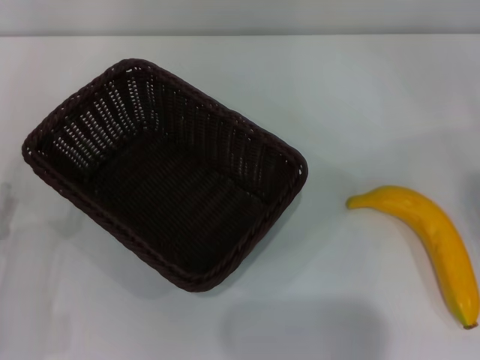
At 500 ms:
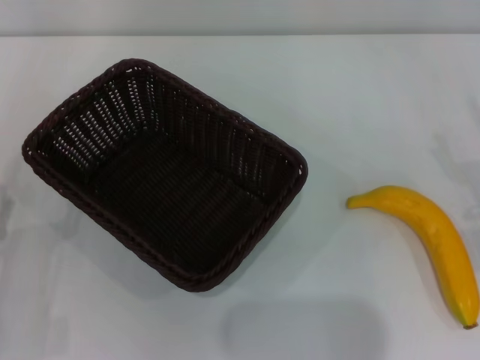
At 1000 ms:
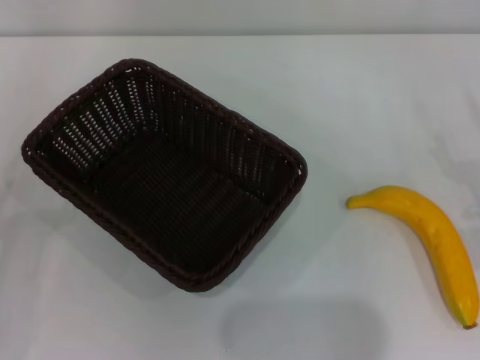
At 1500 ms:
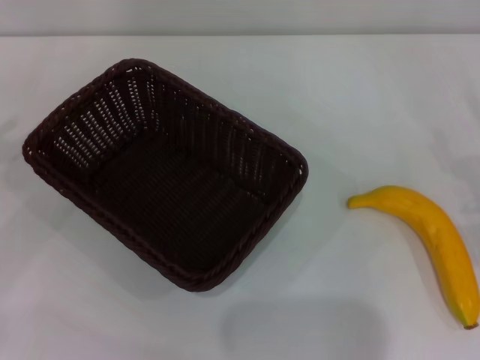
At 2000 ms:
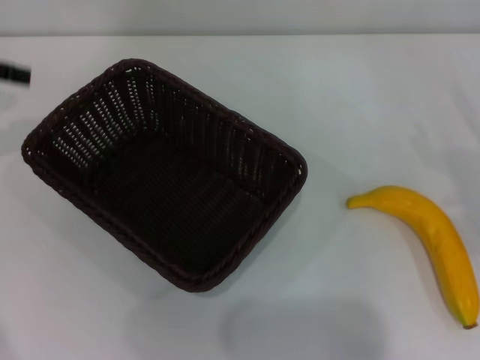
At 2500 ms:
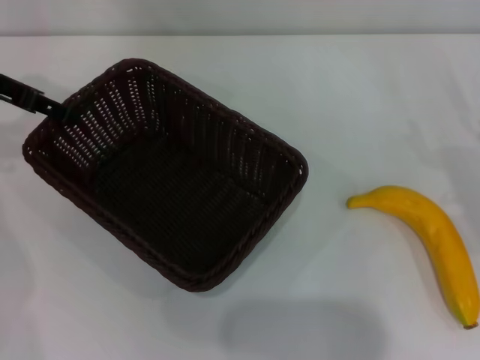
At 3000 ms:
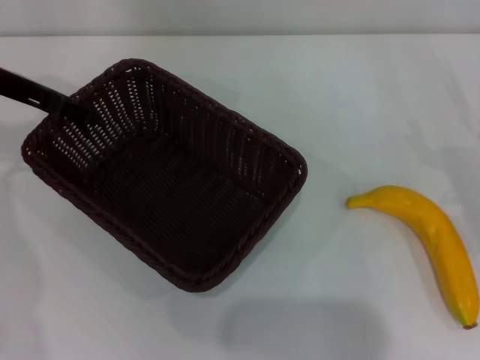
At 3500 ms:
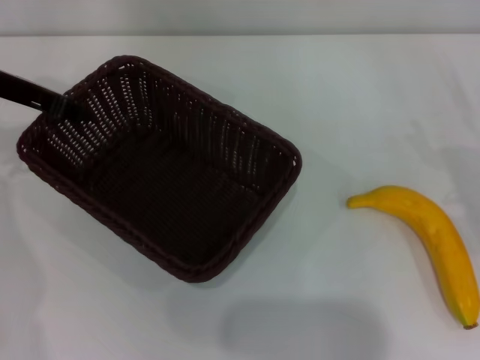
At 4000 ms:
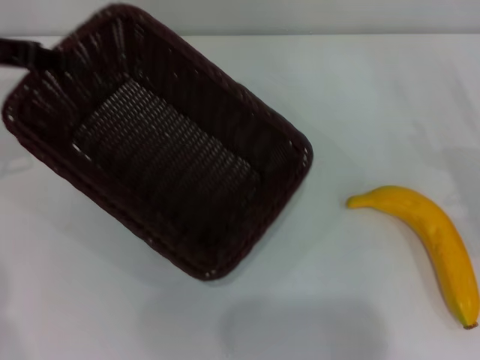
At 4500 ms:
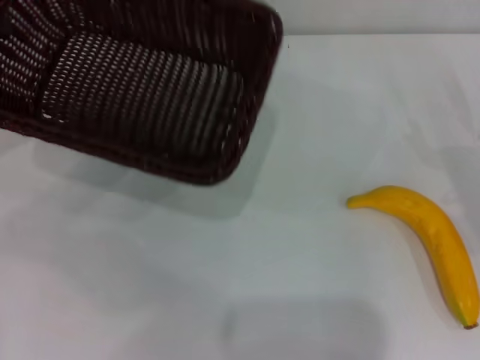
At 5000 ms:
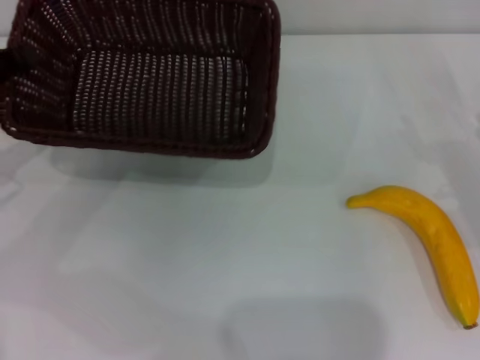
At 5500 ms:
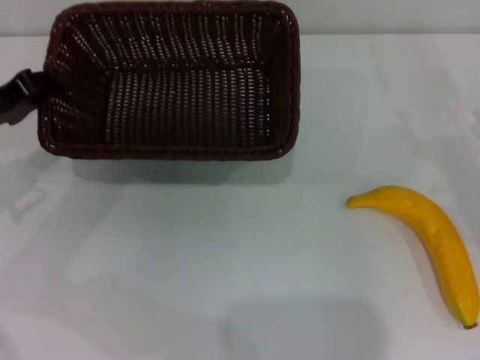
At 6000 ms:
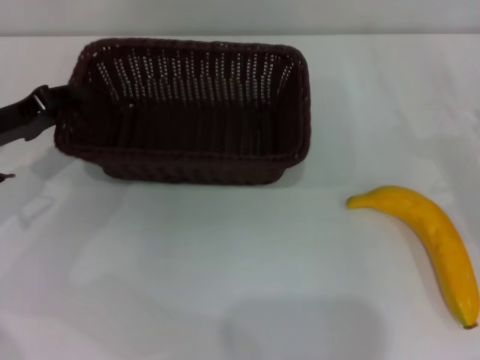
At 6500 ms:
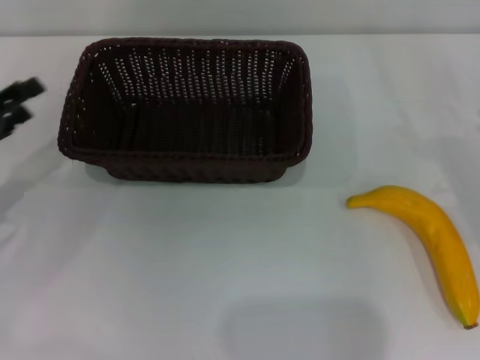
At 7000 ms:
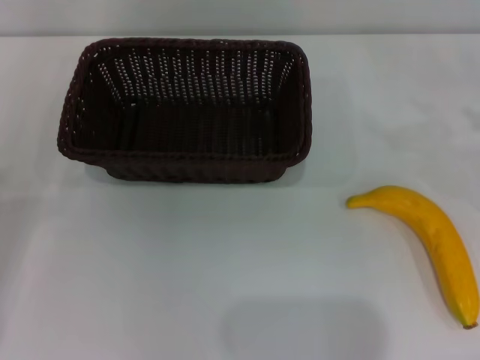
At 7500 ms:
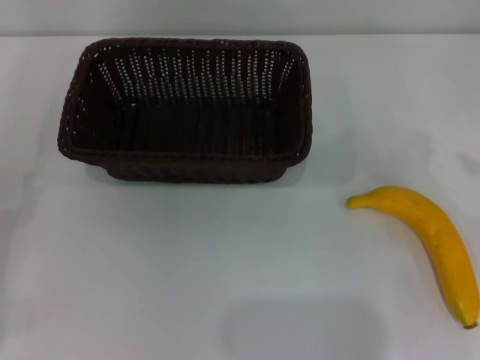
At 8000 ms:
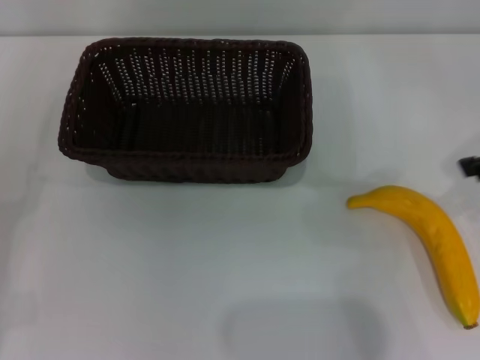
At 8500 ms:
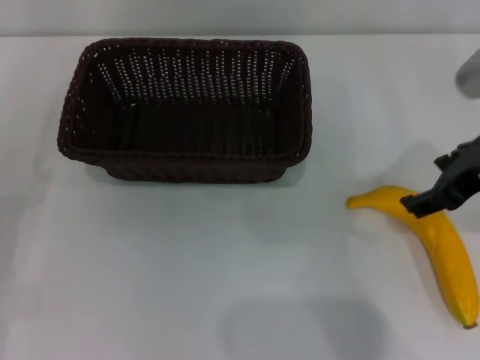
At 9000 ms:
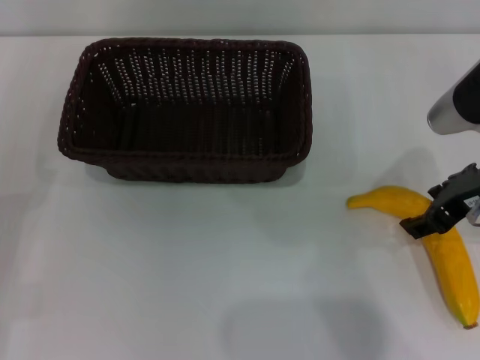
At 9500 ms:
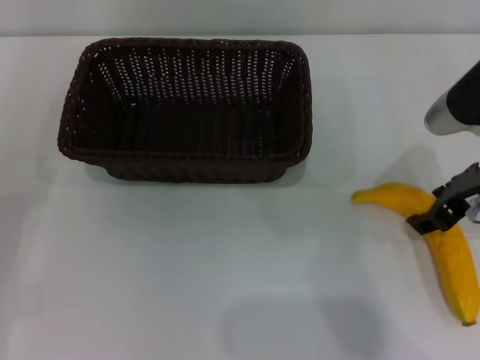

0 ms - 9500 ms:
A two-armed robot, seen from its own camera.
Step, 0 ms - 3500 ms: Pick up the dark basket with the left gripper.
Step, 4000 ms - 6000 ms: Place the dark basket in the center of view with the left gripper.
0 ms - 2000 ms: The left gripper shifts roughly 30 cm upward and forward.
2000 ms - 4000 ms: The left gripper closes its fingers.
4000 ms - 5500 ms: The left gripper is displaced downward and backward by roughly 10 cm.
5500 ms - 7500 ms: The right gripper is displaced upward by some 15 cm; the left gripper goes approximately 15 cm backward and downward, and opens up.
7500 ms - 9500 ms: The right gripper heads to the left and downward, covering some 15 cm.

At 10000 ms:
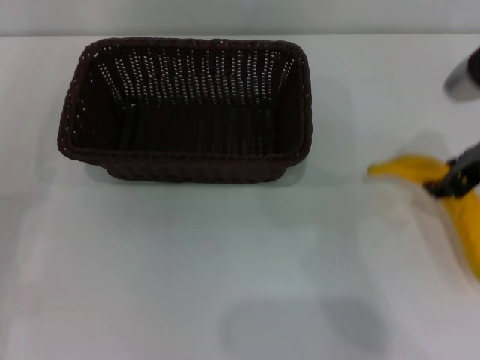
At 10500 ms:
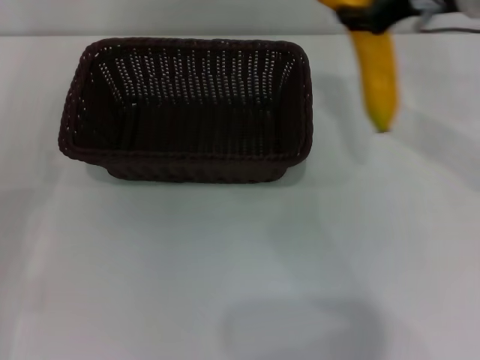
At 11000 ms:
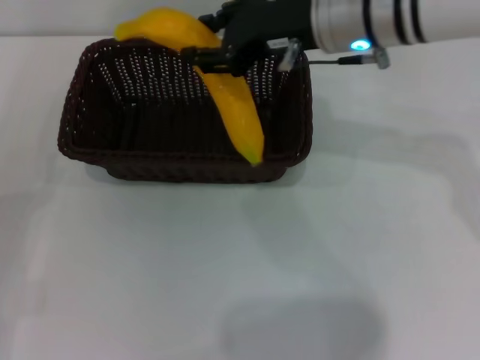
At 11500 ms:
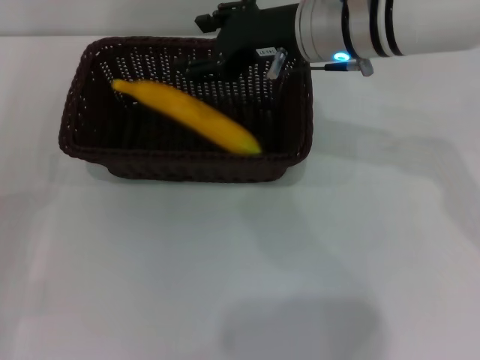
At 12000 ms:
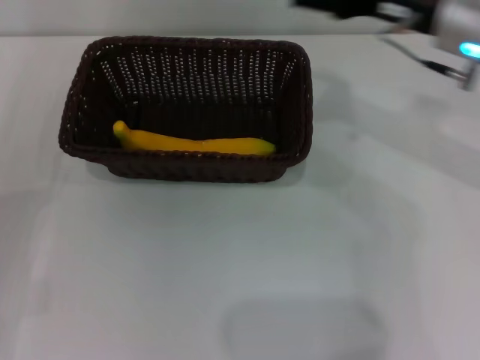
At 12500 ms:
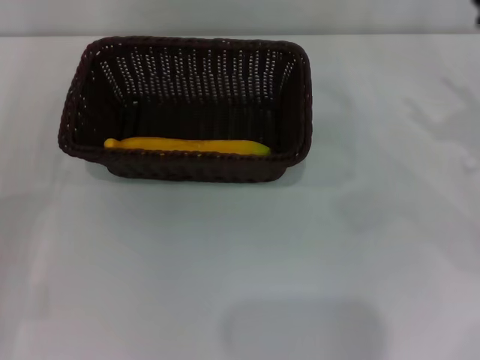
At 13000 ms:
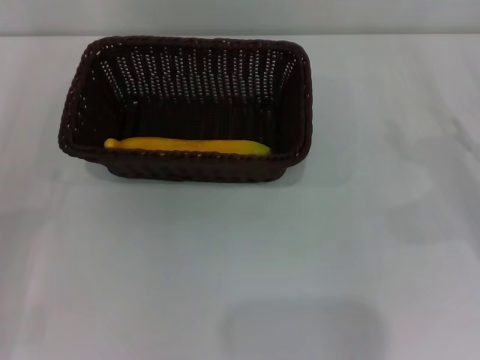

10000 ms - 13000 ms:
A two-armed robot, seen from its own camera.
Step, 10500 ms - 11500 ms: Place the banana into the dark basket with the right gripper.
10000 ms - 11500 ms: The right gripper goes some 15 cm to the left and forward.
11500 ms - 13000 ms: The right gripper shifts roughly 30 cm to the right and downward, and opens.

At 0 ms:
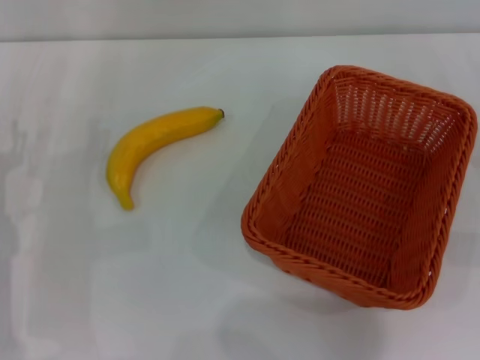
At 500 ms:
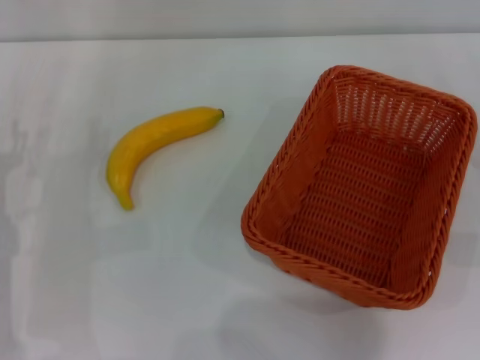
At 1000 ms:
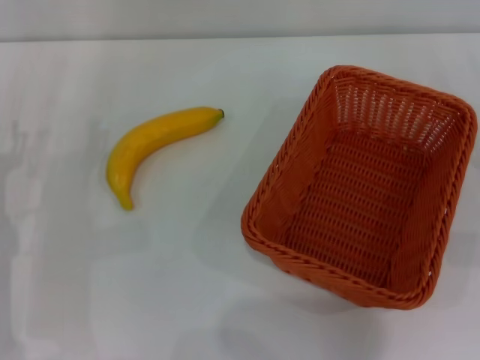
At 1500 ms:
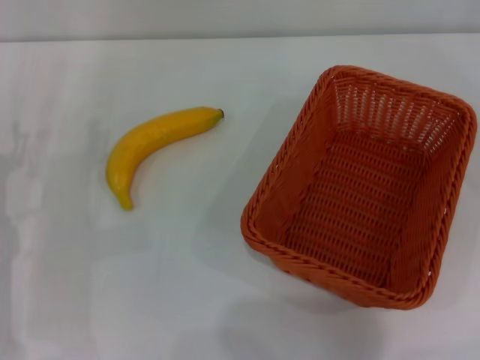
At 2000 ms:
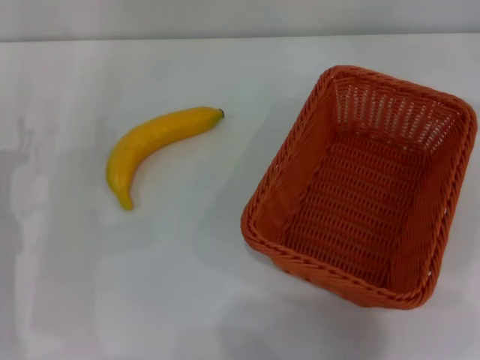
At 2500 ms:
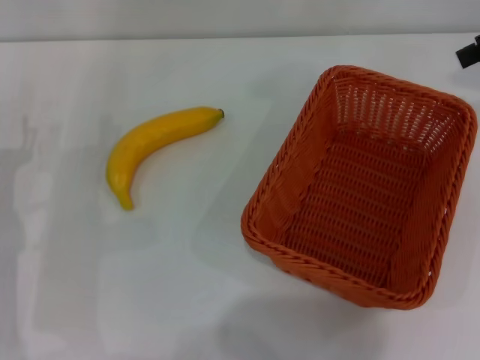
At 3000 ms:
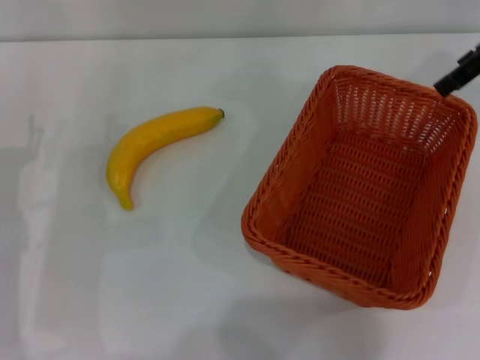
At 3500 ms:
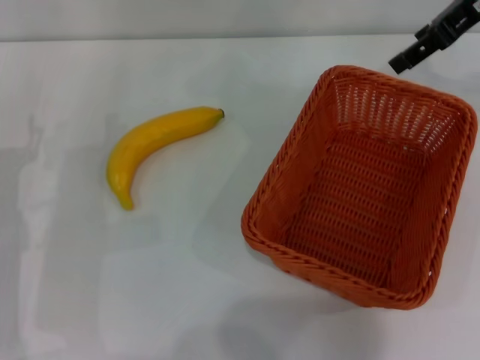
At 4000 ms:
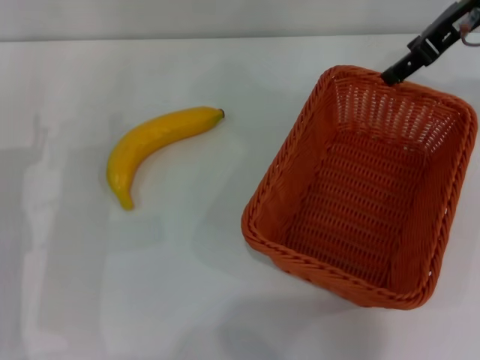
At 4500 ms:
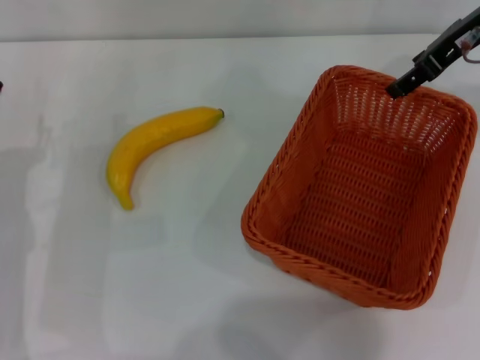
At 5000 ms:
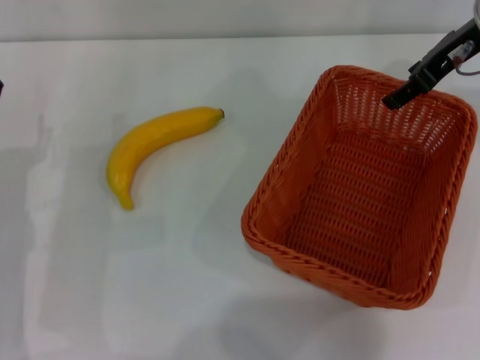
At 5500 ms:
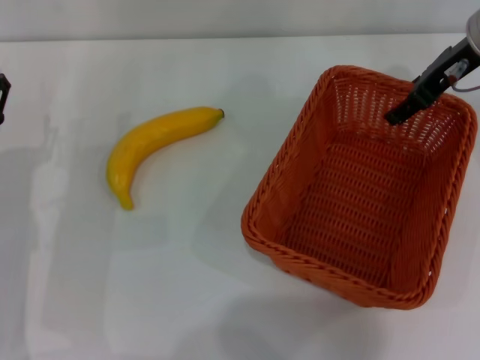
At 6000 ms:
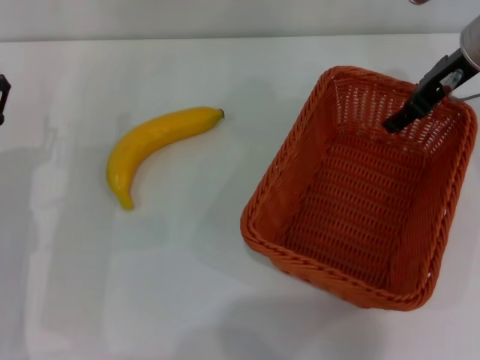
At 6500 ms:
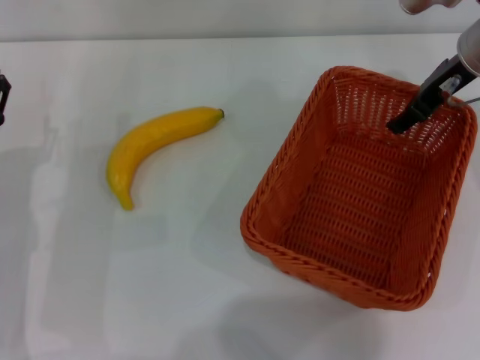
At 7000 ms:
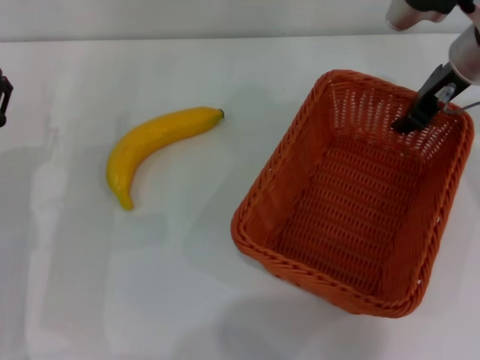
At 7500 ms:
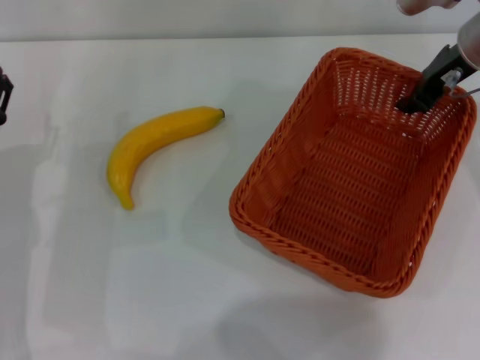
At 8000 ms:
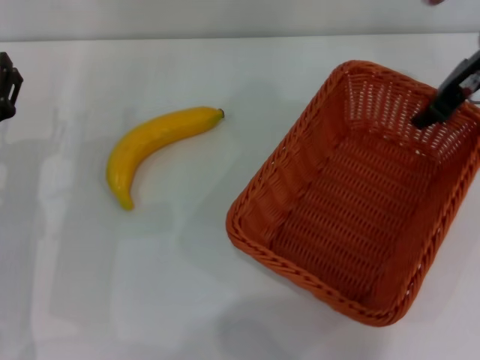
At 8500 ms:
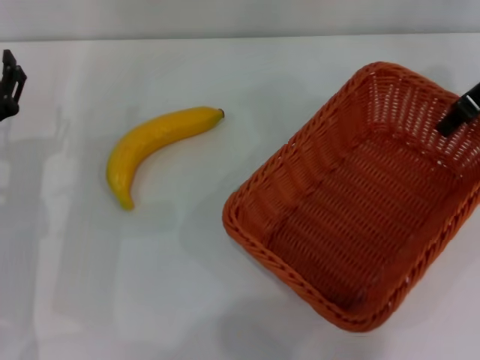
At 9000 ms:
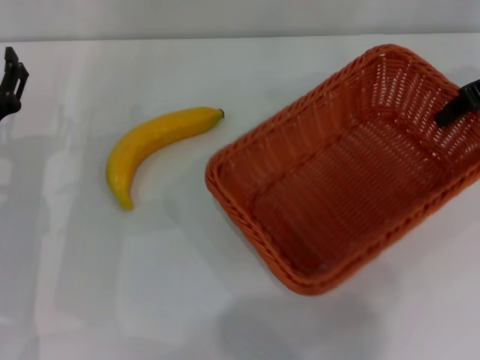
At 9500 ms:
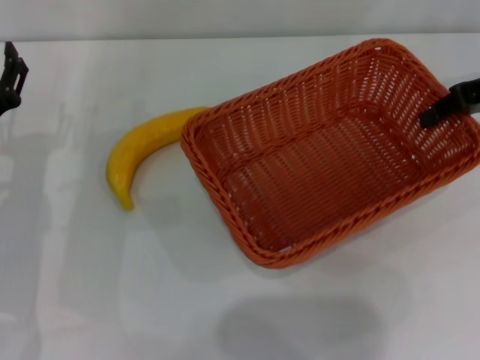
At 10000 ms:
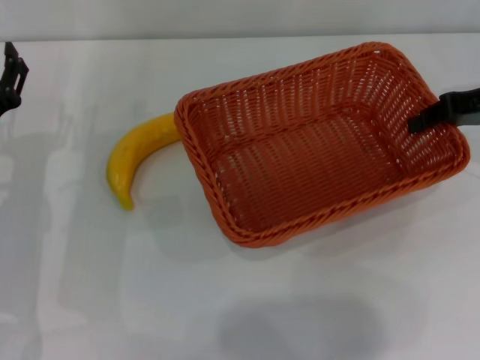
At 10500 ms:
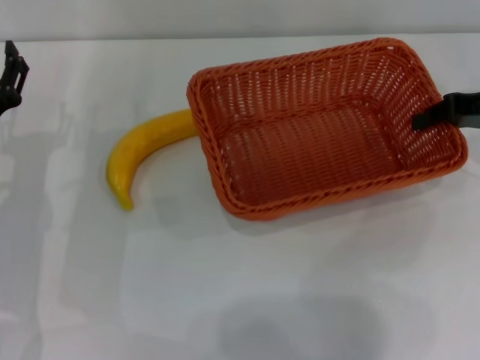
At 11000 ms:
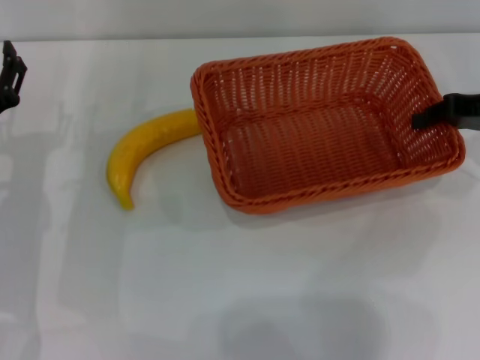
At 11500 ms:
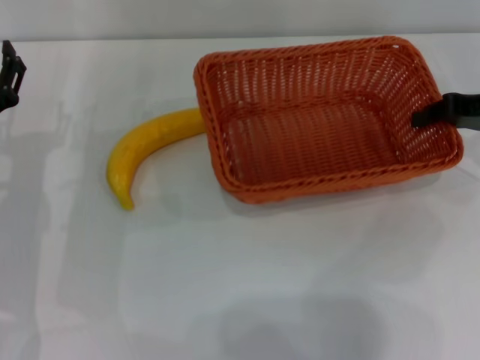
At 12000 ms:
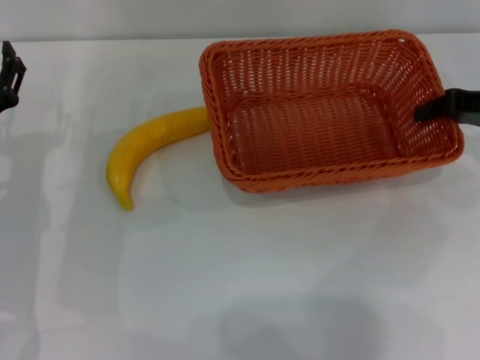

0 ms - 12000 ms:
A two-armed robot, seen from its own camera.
Step, 0 ms - 8500 ms: Pick up the light basket with the right gripper.
2000 ms - 4000 ms: The right gripper goes some 15 cm to the left.
4000 ms - 6000 ms: The right gripper travels downward by approximately 5 cm.
6000 ms - 8000 ms: The right gripper closes its fingers.
8000 ms - 10000 ms: The right gripper is displaced to the right by about 5 cm.
10000 ms - 12000 ms: The grippers move only a little.

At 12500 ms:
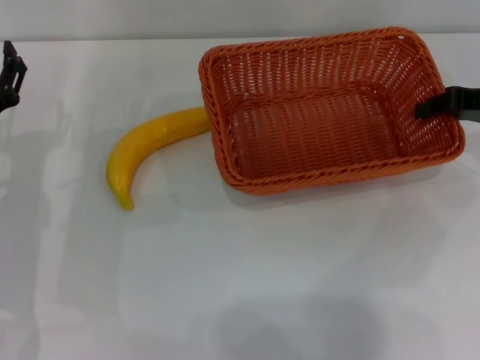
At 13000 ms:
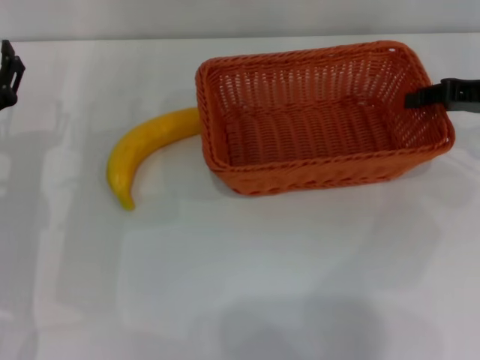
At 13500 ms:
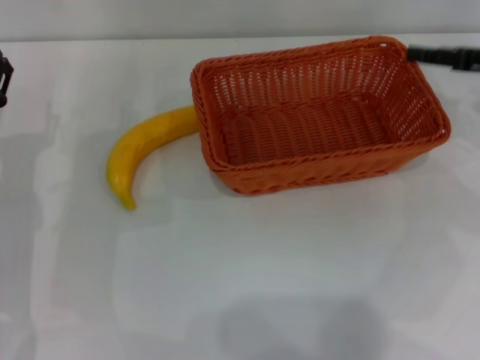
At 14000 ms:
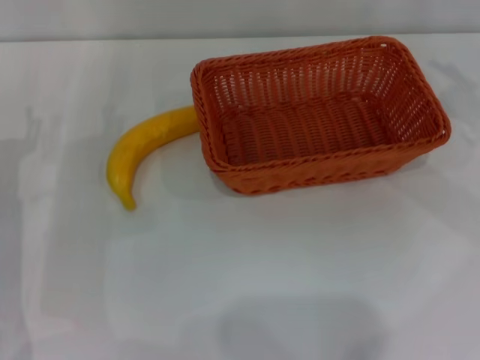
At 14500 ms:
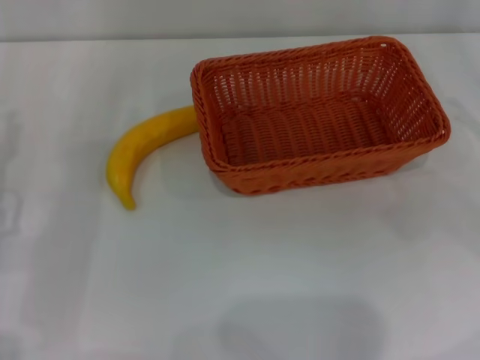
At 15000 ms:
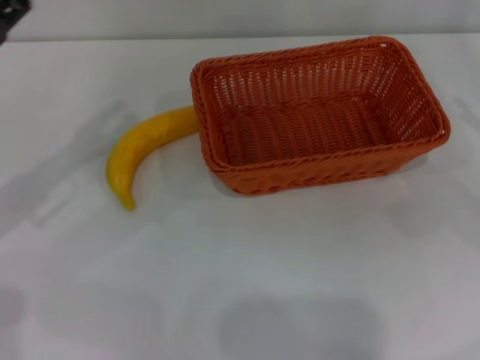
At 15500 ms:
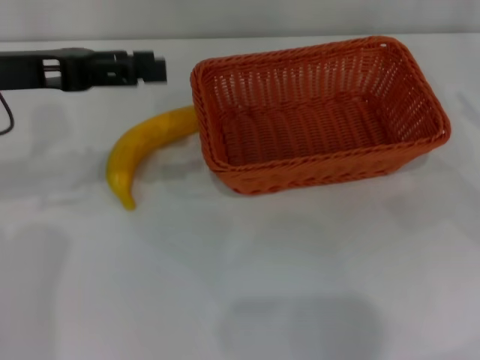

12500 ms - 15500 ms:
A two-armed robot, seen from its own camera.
12500 ms - 14000 ms: The right gripper moves approximately 5 cm, and opens up.
14000 ms - 15500 ms: The left gripper is displaced upward by roughly 15 cm.
